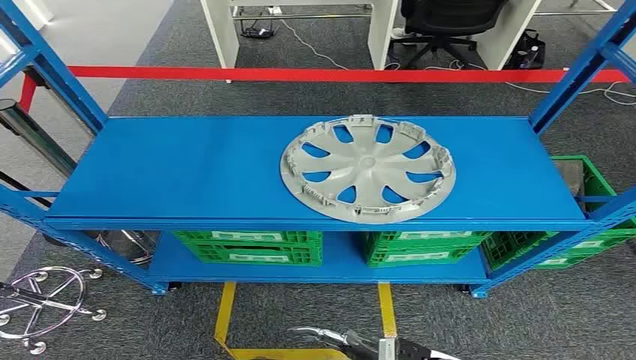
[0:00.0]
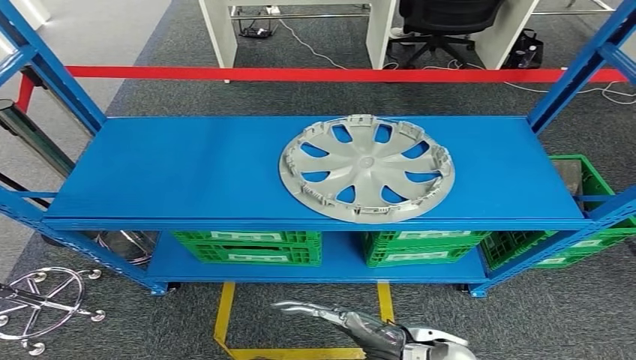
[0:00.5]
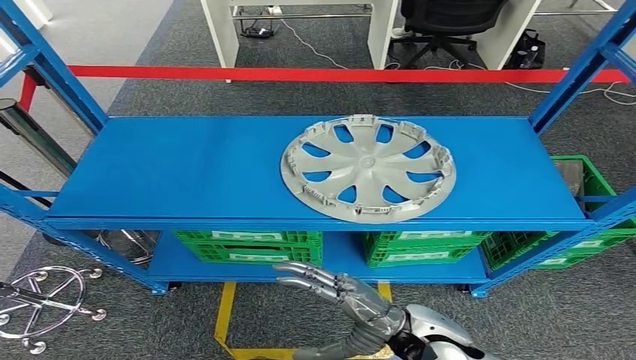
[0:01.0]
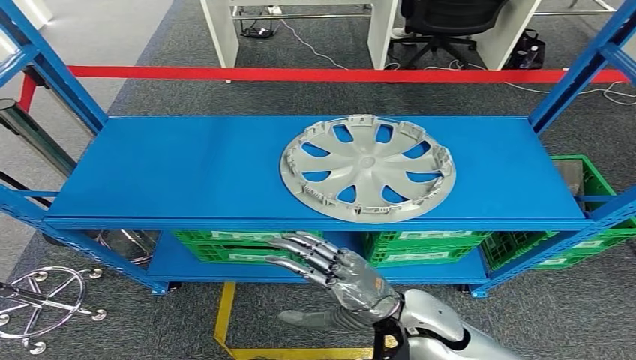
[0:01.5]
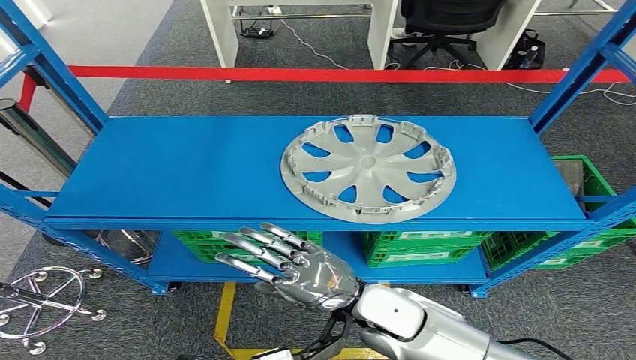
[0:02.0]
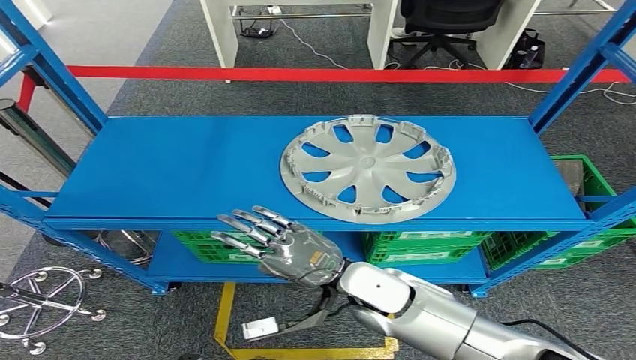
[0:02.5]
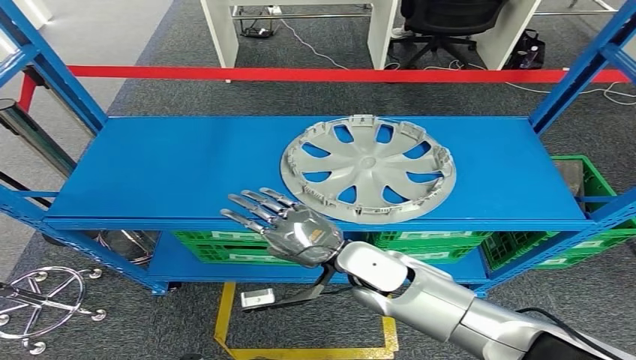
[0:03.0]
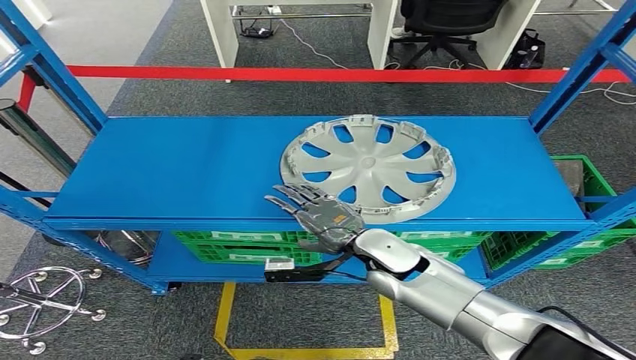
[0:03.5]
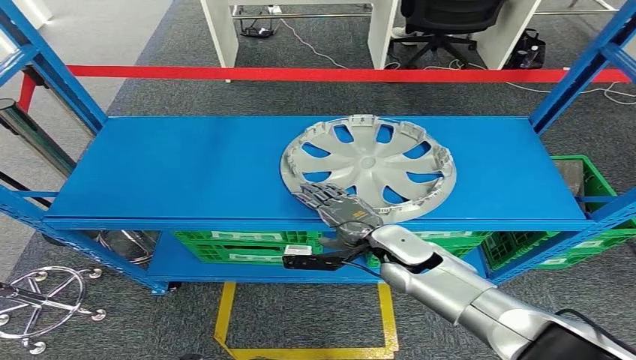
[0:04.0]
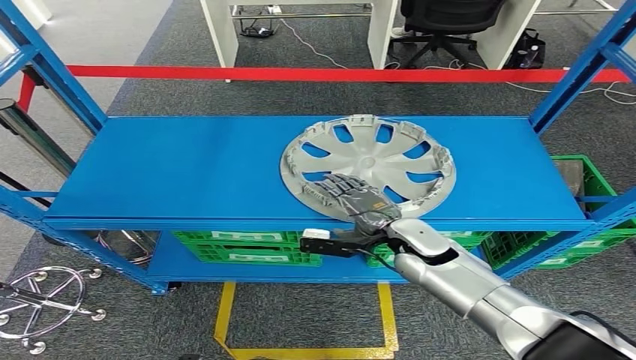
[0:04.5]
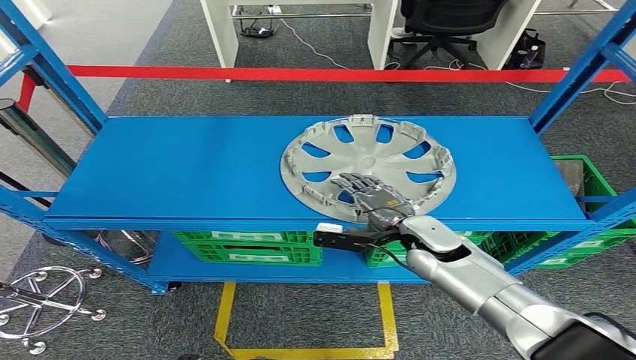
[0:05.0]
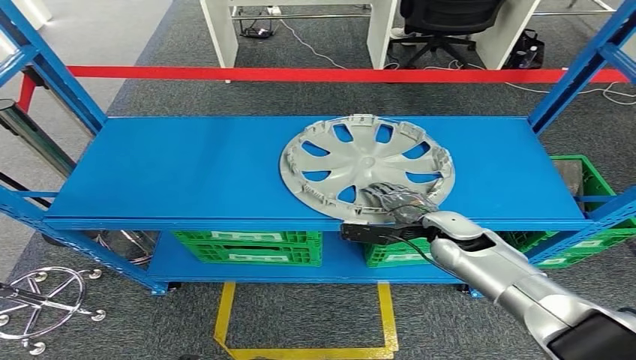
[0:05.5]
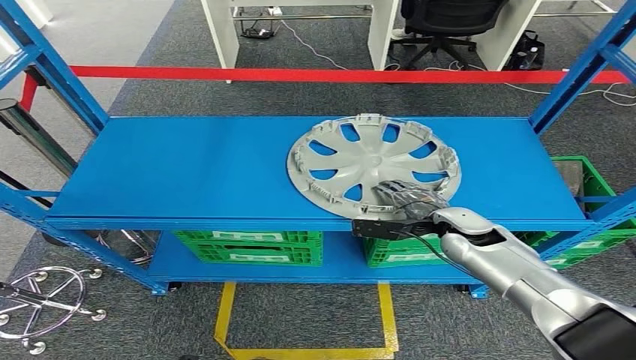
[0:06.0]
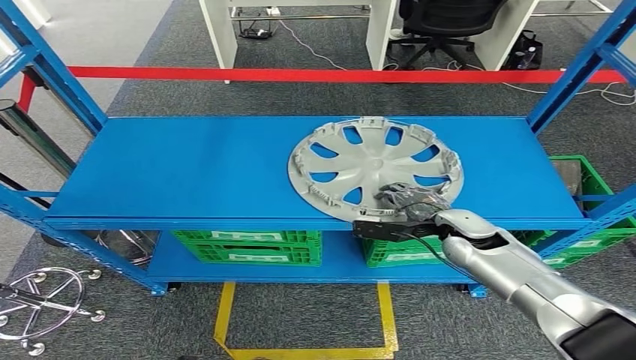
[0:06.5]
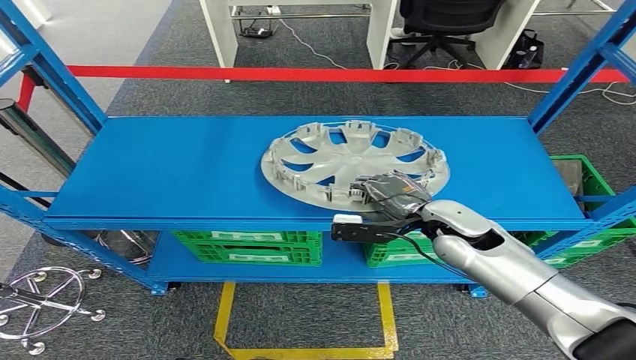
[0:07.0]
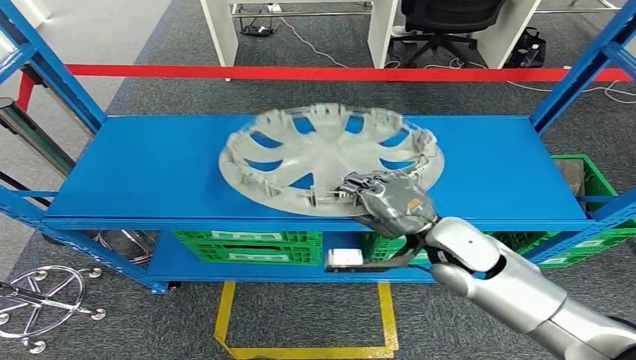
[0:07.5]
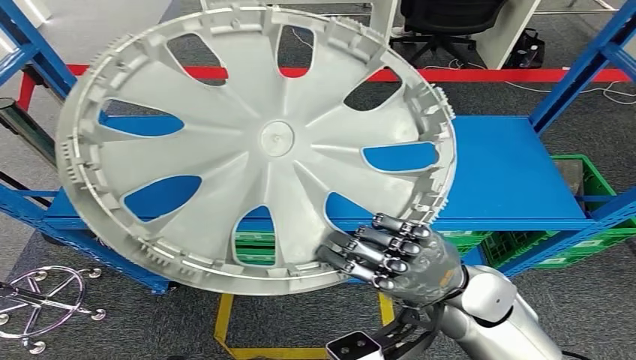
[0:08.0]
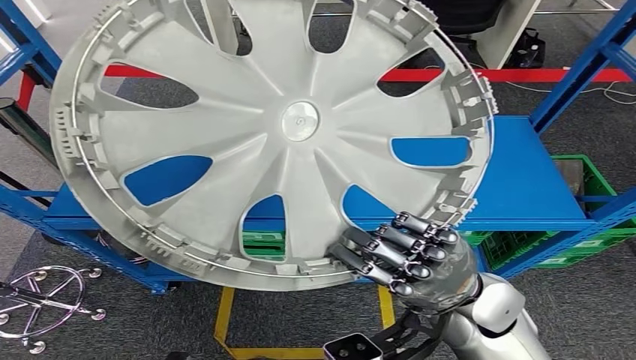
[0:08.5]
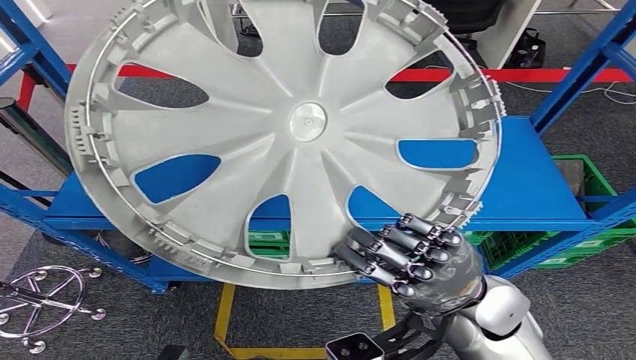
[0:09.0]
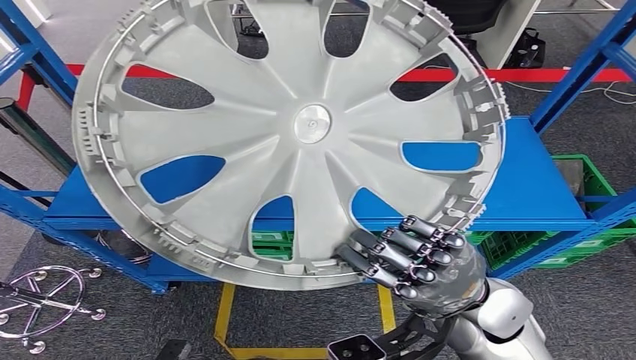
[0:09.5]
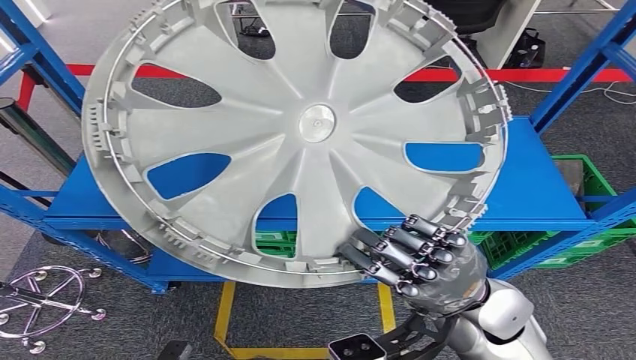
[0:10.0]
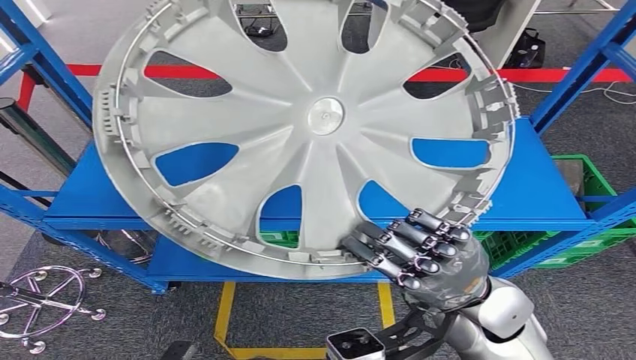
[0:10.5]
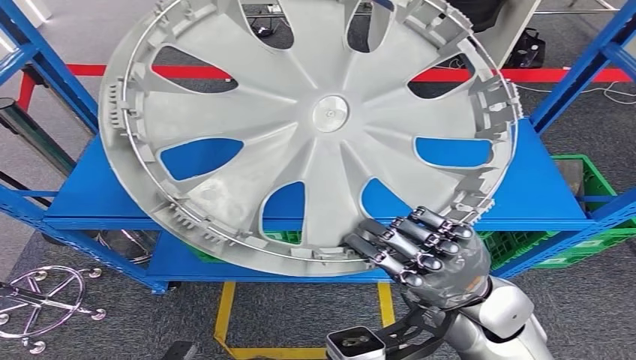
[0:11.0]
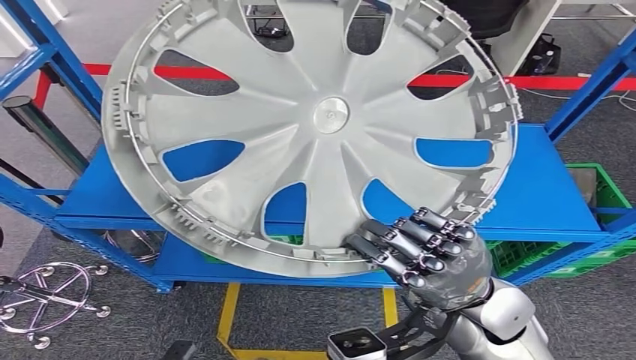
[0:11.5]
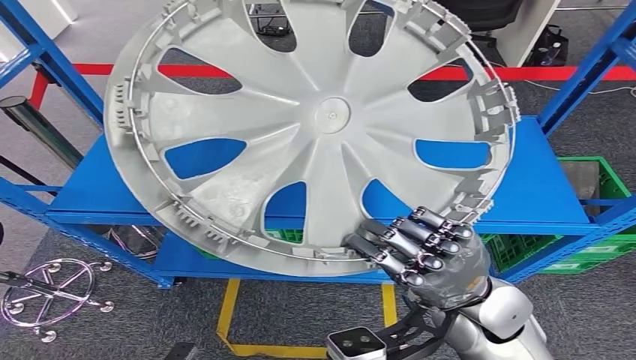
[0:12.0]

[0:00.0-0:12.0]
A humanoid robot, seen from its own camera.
Step, 0:00.0 to 0:08.5: Pick up the small component from the shelf.
0:02.0 to 0:04.0: The right hand heads forward, covering roughly 10 cm.
0:04.0 to 0:06.0: The right hand travels to the right by roughly 10 cm.

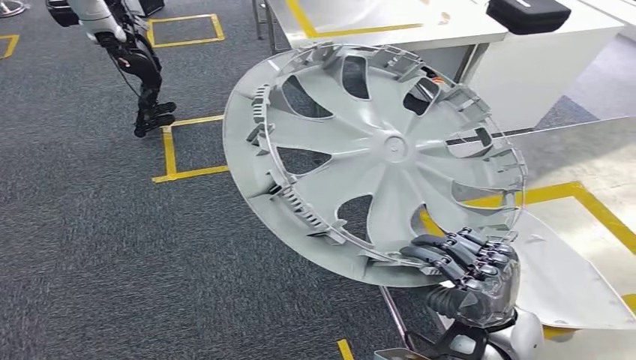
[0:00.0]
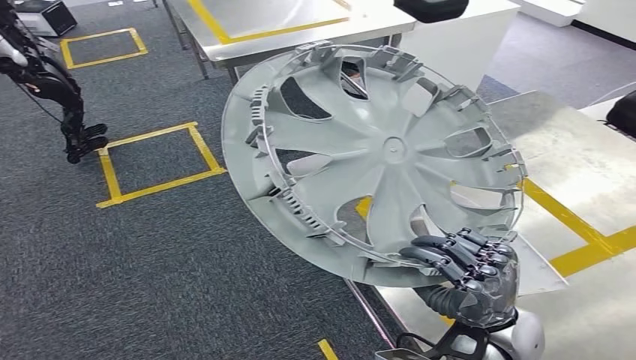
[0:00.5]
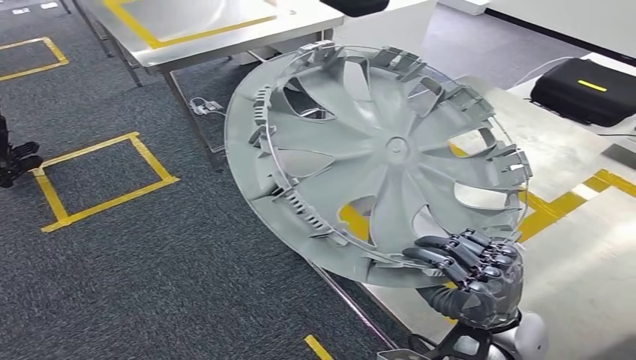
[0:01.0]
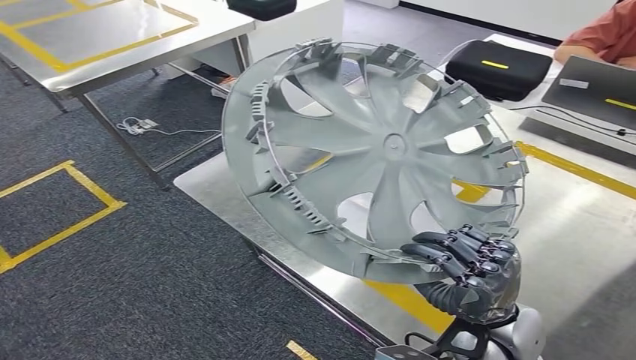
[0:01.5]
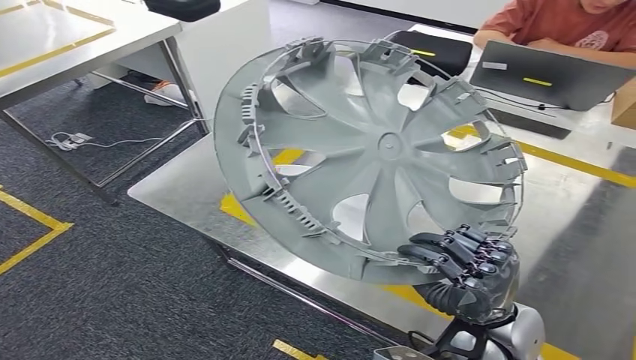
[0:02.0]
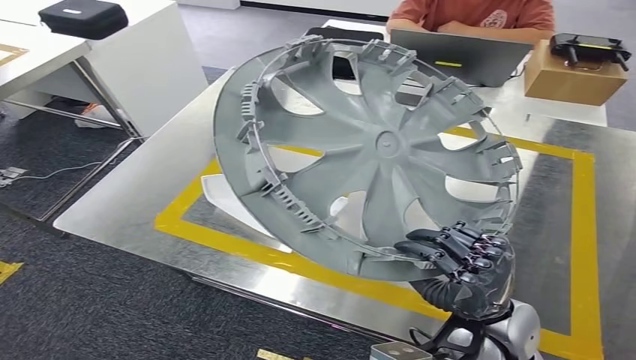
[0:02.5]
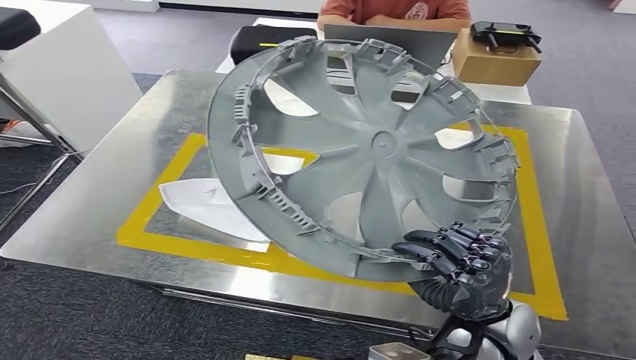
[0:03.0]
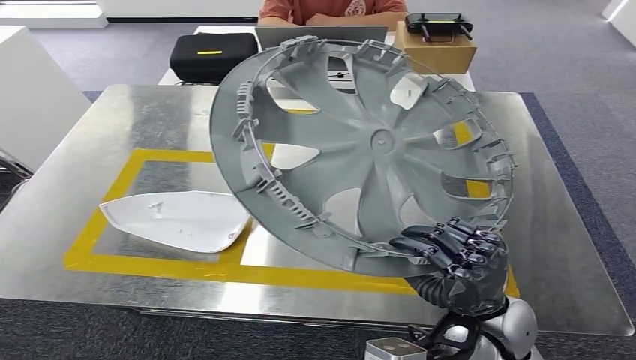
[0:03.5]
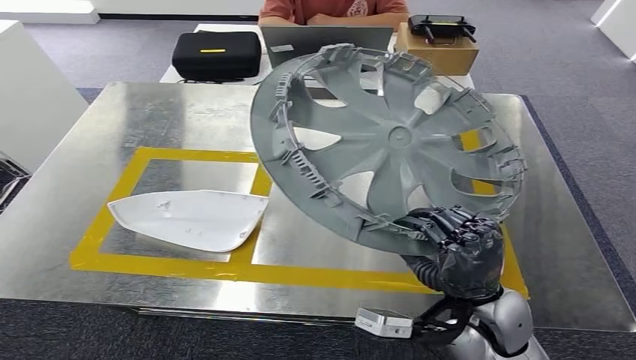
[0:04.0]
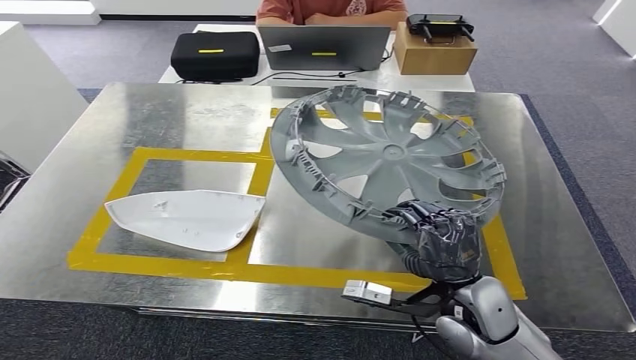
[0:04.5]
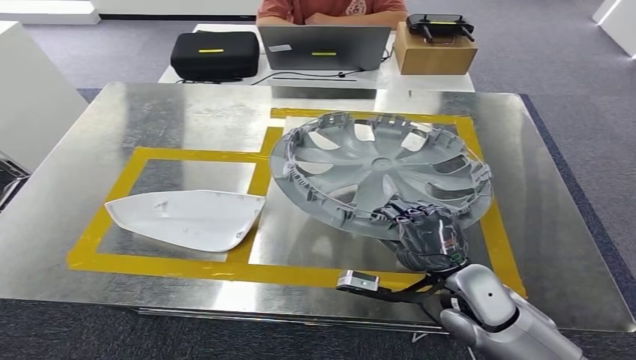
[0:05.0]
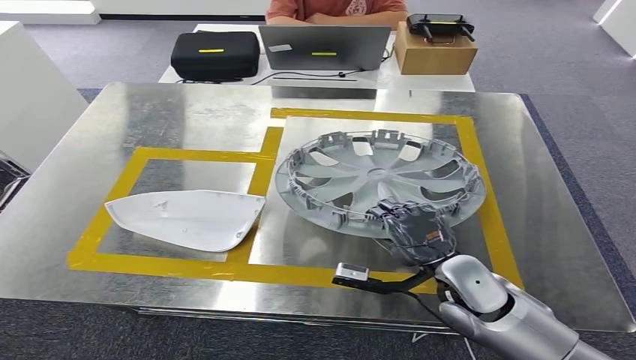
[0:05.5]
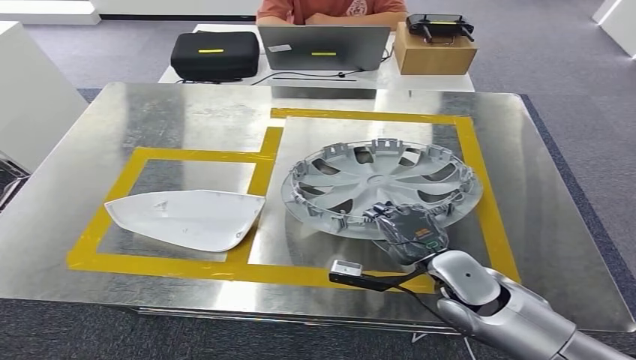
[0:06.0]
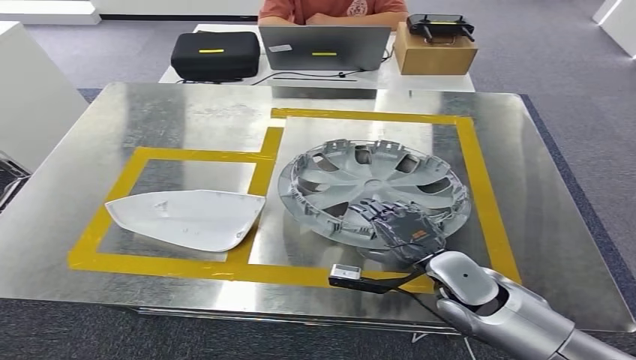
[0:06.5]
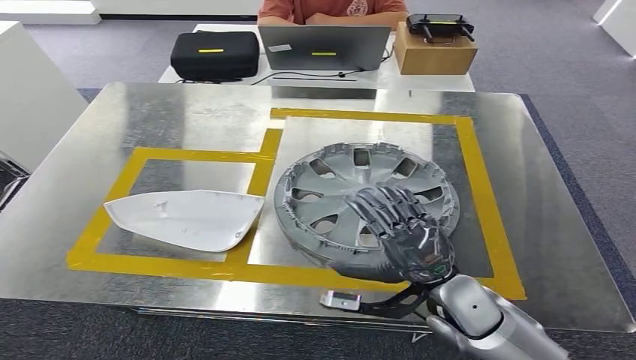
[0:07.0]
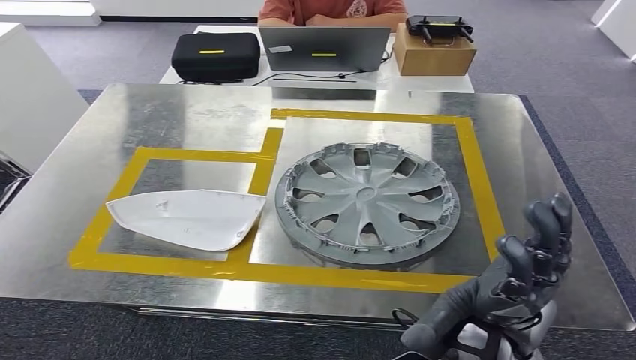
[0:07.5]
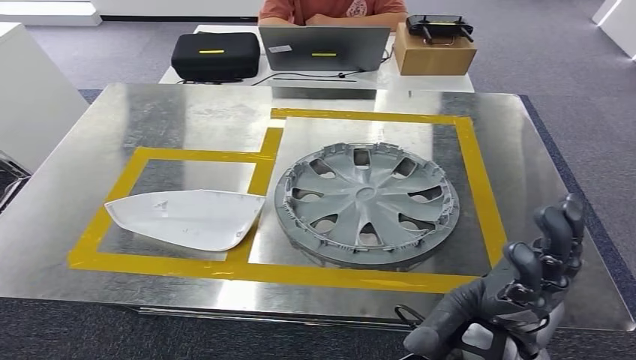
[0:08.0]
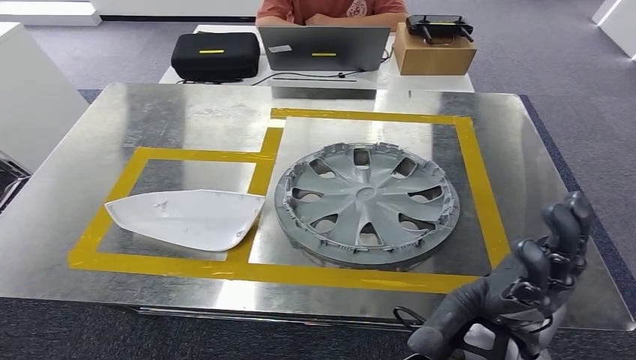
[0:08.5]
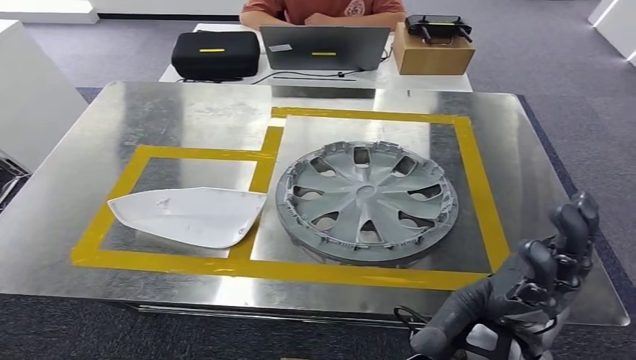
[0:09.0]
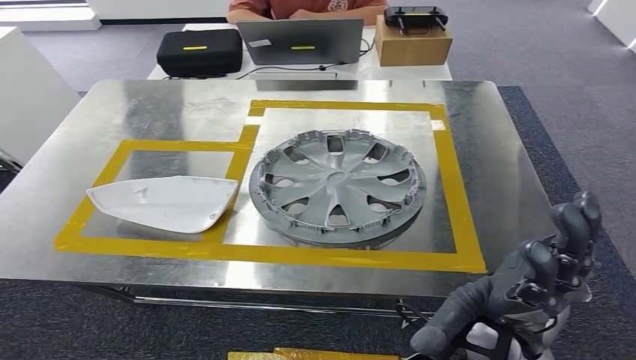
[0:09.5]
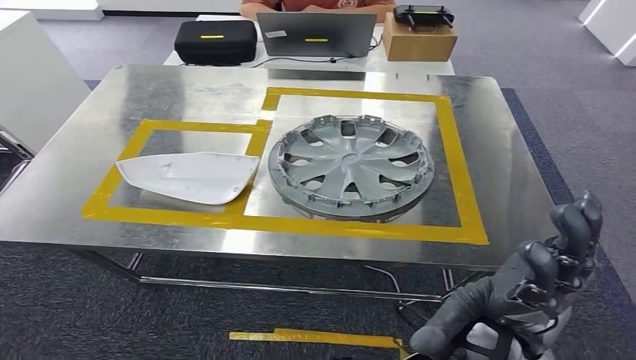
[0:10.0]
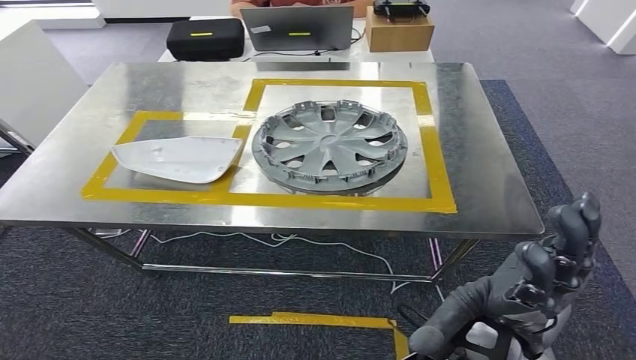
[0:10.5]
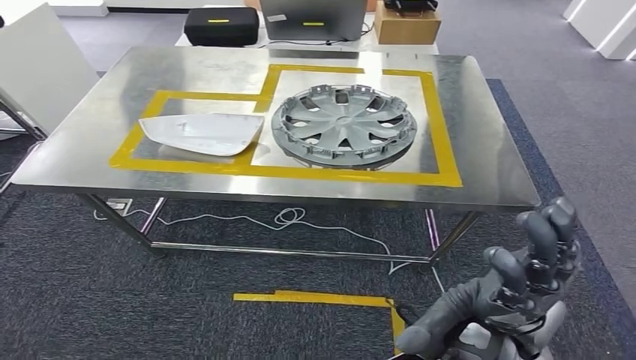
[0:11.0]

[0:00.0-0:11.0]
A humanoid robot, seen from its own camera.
Step, 0:00.0 to 0:04.0: Move the small component to the workbench.
Step, 0:04.5 to 0:09.0: Insert the small component into the corresponding slot on the workbench.
0:05.5 to 0:07.5: The right hand shifts approximately 10 cm upward and backward.
0:07.5 to 0:09.0: Both hands stay put.
